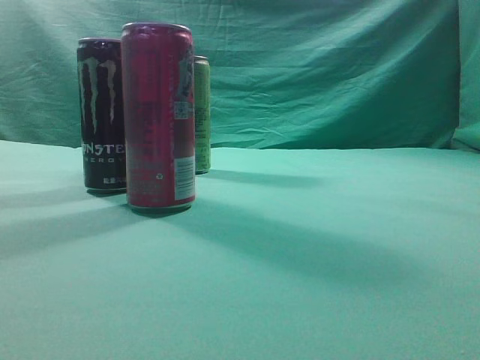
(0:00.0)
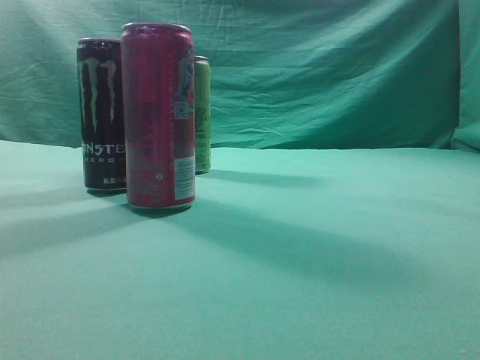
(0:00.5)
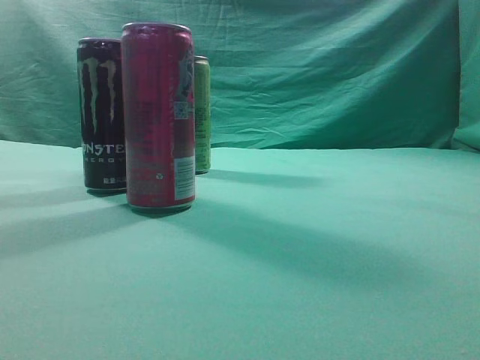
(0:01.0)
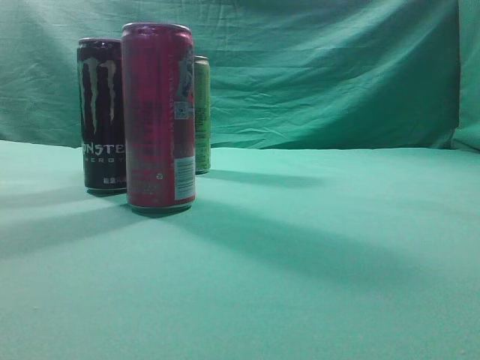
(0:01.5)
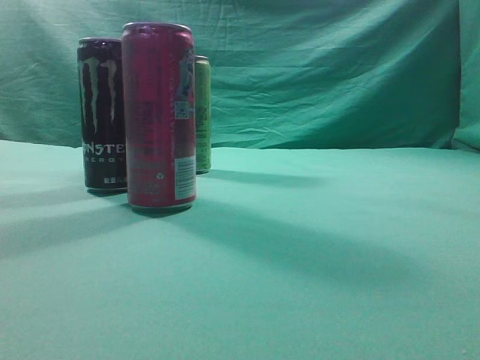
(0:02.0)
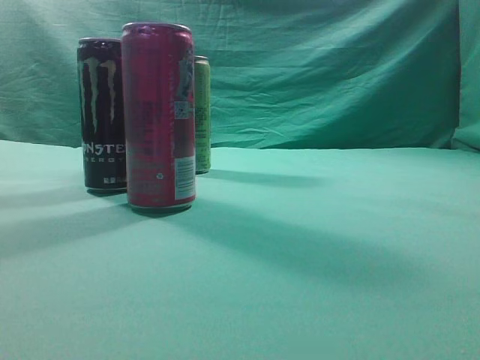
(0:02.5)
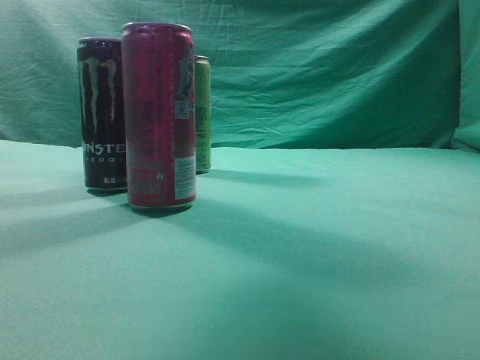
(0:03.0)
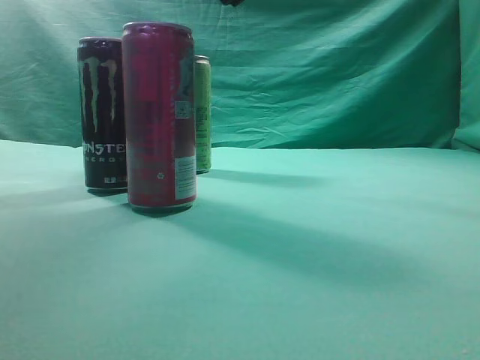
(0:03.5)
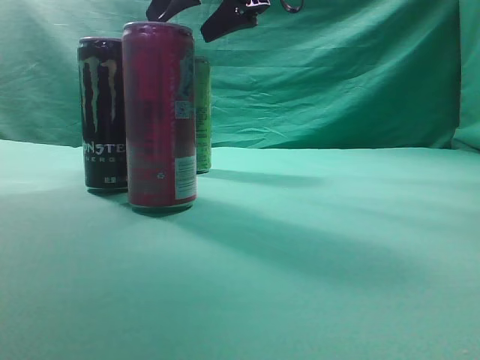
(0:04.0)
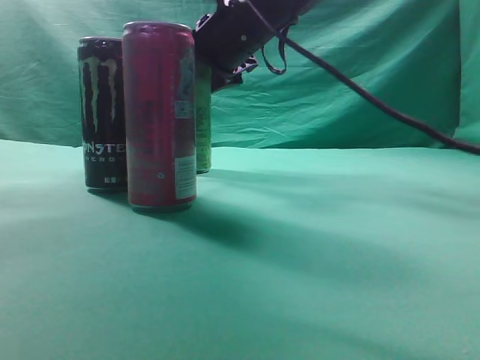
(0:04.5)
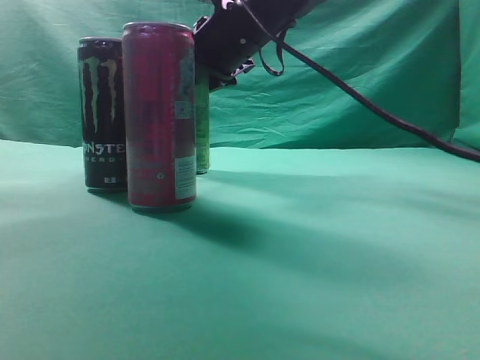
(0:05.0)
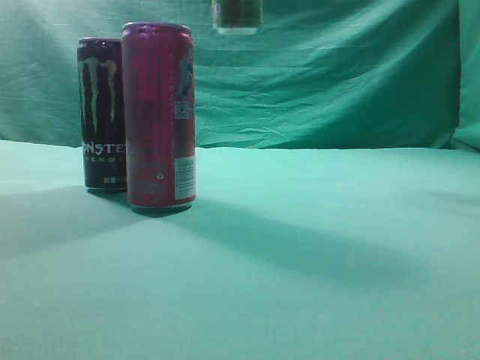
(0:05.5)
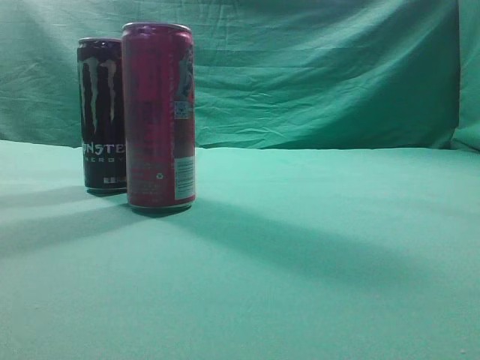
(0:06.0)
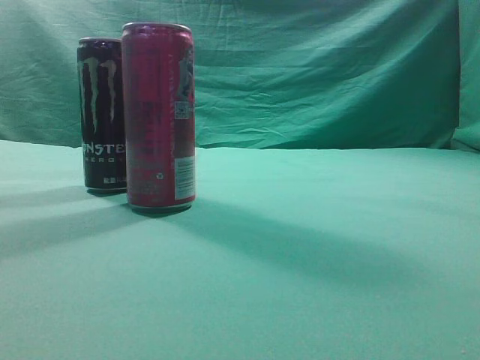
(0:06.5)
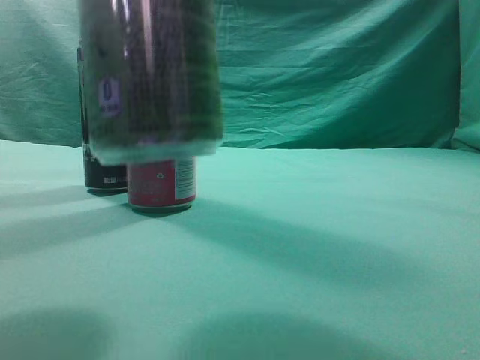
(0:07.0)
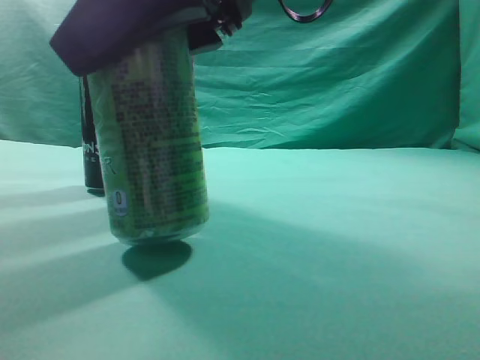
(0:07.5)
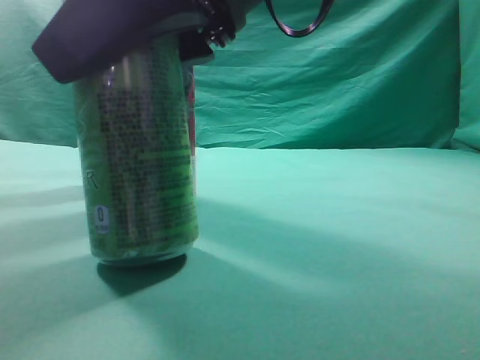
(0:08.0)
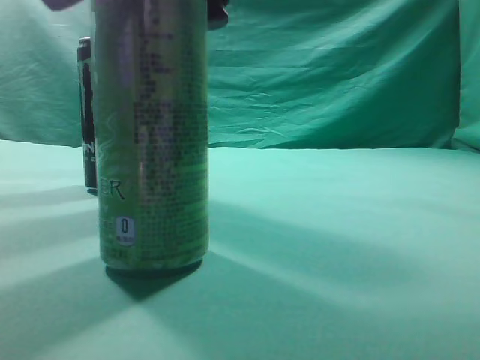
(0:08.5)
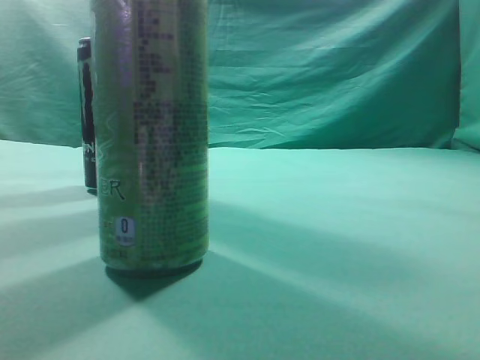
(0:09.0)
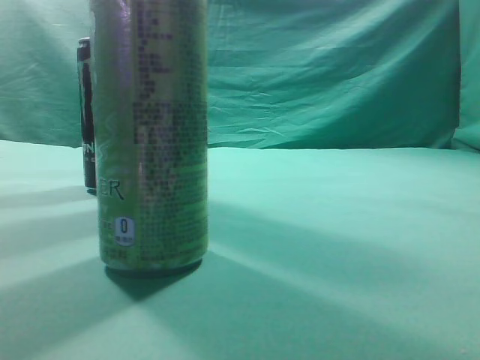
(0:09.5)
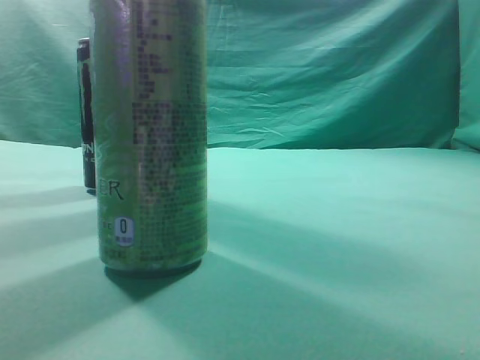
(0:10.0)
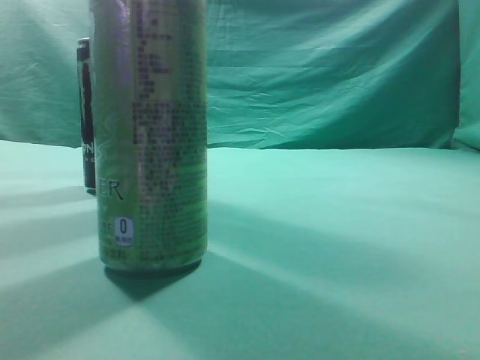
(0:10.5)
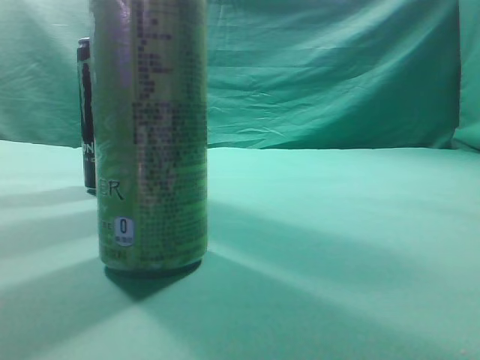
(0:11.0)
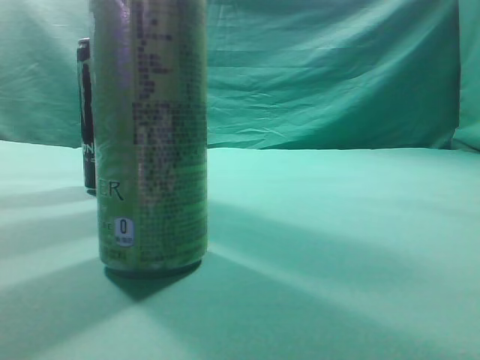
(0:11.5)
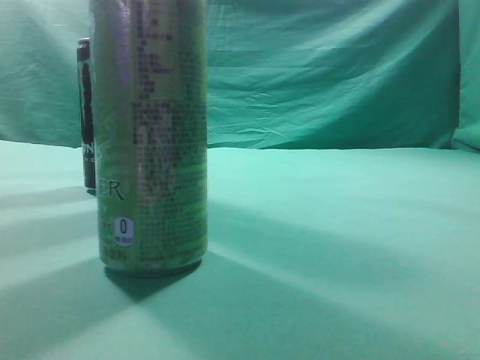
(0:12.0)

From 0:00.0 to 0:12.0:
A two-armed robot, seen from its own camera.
Task of the whole recording: move one drink among three beverages.
Step, from 0:00.0 to 0:05.0: Grasp the beverage bottle placed at the back of the desk.
Step, from 0:05.5 to 0:08.5: Place the beverage bottle to the front of the table.
From 0:02.0 to 0:04.0: The right gripper heads forward and to the left, covering about 50 cm, and opens its fingers.
From 0:04.0 to 0:06.0: The right gripper moves upward, backward and to the right, about 25 cm.
From 0:06.0 to 0:08.0: The right gripper goes about 25 cm downward and to the left.
From 0:08.0 to 0:10.0: The right gripper shifts approximately 30 cm to the right, upward and backward, and closes its fingers.
